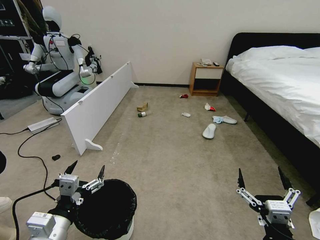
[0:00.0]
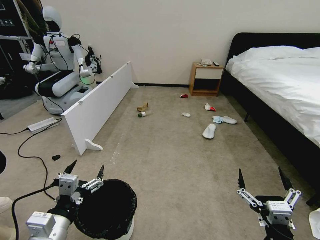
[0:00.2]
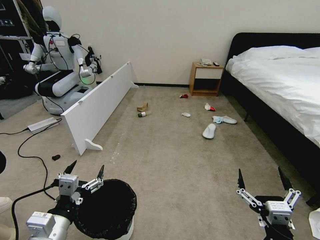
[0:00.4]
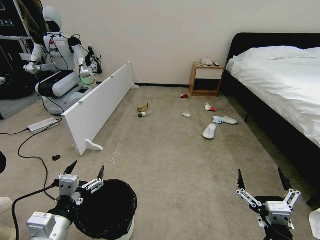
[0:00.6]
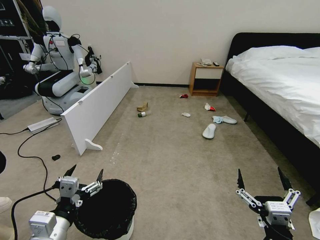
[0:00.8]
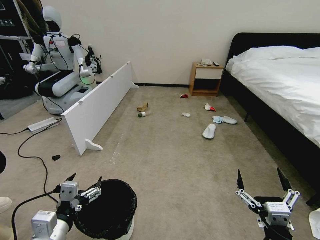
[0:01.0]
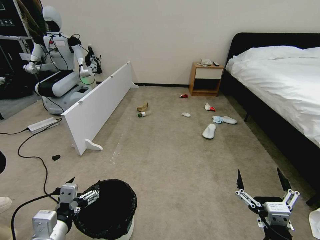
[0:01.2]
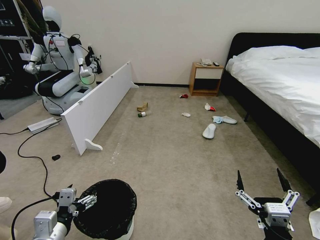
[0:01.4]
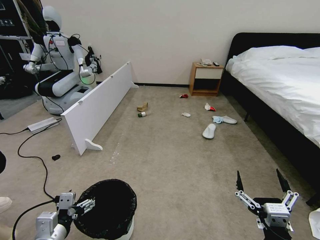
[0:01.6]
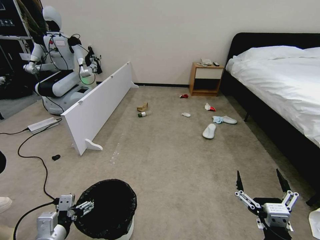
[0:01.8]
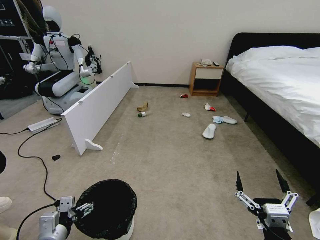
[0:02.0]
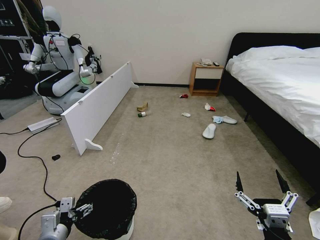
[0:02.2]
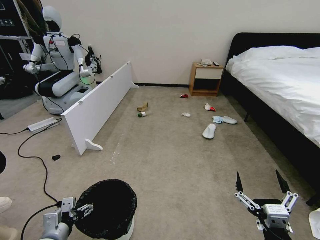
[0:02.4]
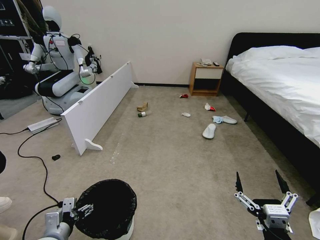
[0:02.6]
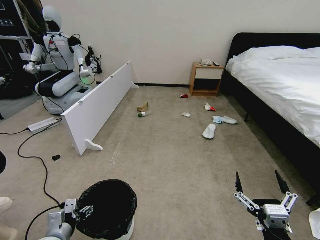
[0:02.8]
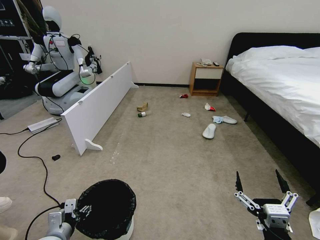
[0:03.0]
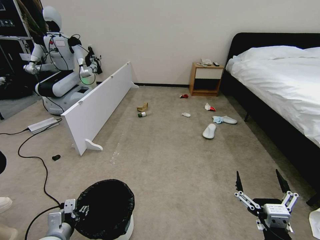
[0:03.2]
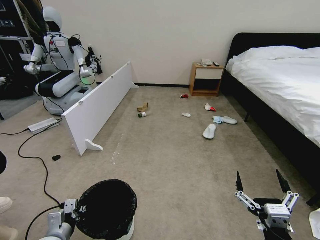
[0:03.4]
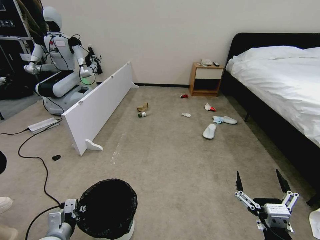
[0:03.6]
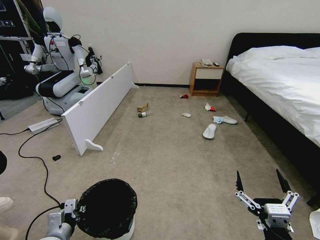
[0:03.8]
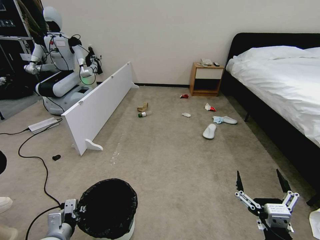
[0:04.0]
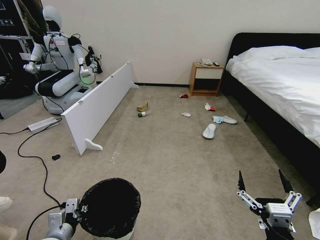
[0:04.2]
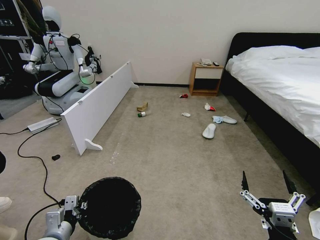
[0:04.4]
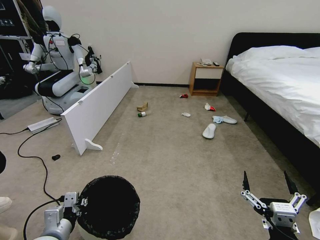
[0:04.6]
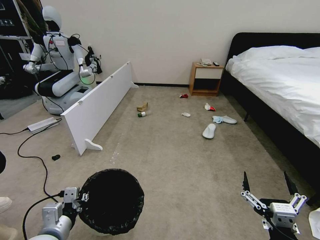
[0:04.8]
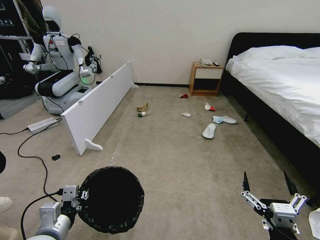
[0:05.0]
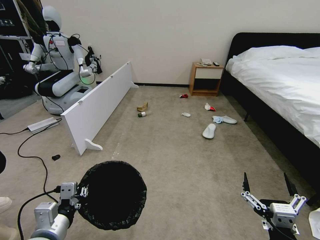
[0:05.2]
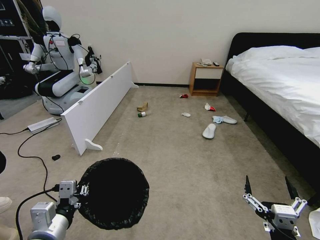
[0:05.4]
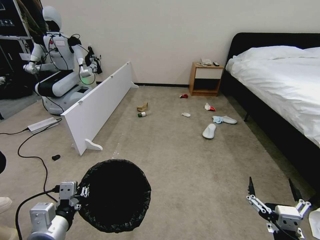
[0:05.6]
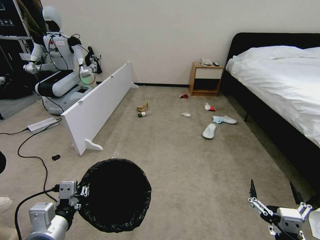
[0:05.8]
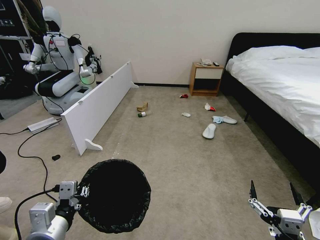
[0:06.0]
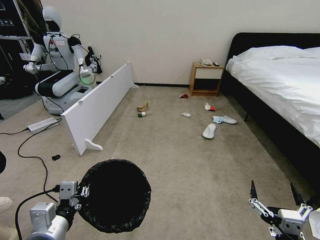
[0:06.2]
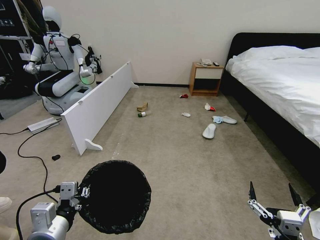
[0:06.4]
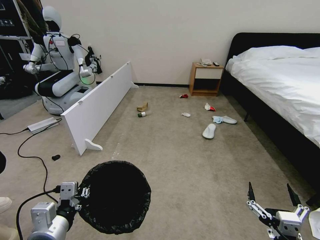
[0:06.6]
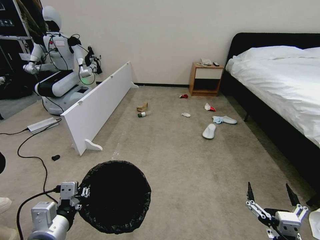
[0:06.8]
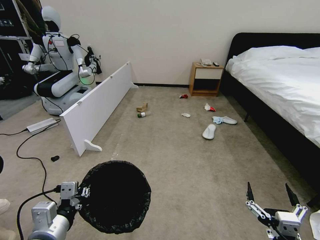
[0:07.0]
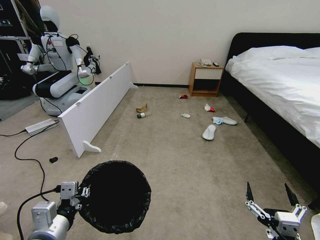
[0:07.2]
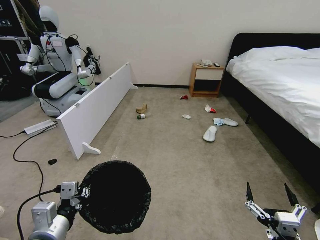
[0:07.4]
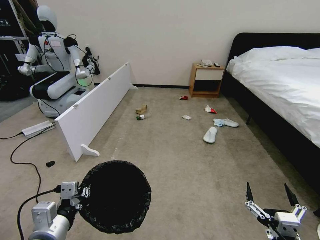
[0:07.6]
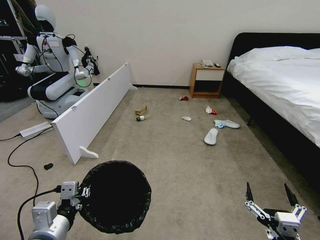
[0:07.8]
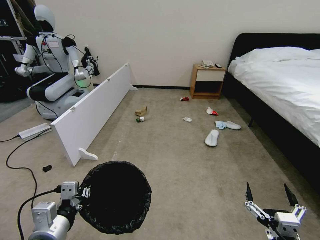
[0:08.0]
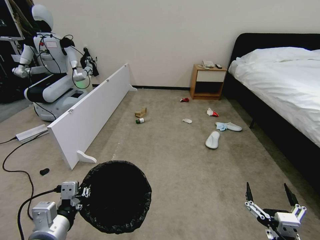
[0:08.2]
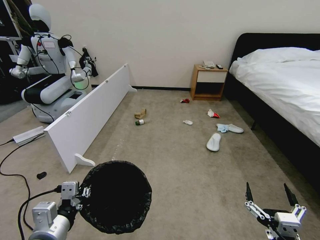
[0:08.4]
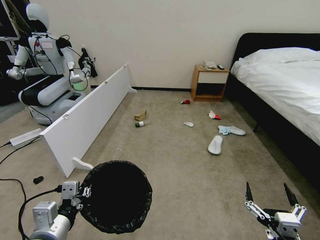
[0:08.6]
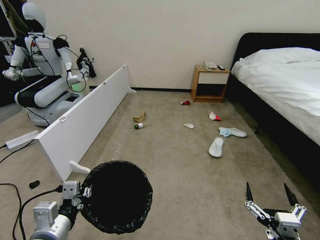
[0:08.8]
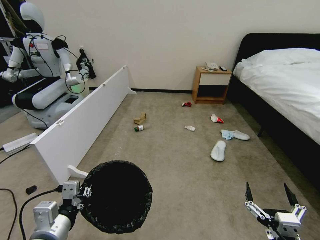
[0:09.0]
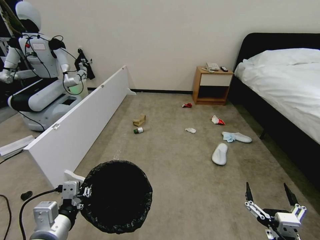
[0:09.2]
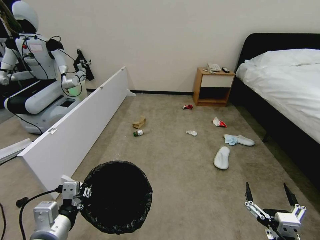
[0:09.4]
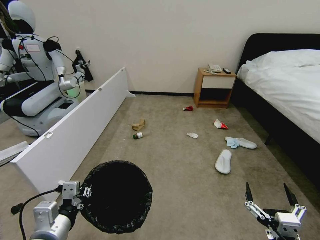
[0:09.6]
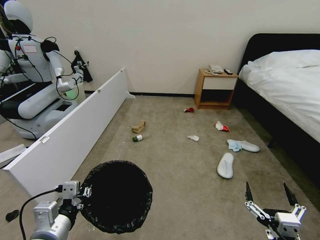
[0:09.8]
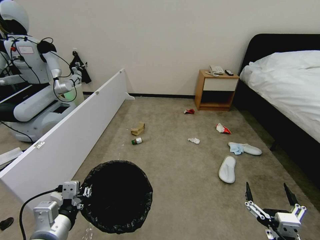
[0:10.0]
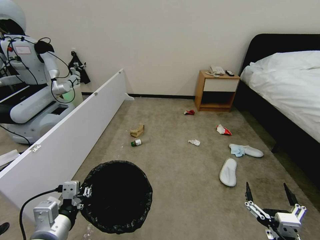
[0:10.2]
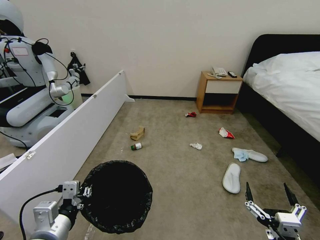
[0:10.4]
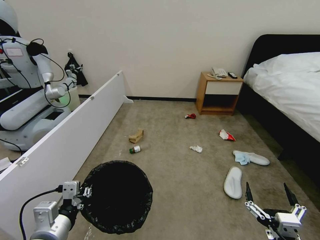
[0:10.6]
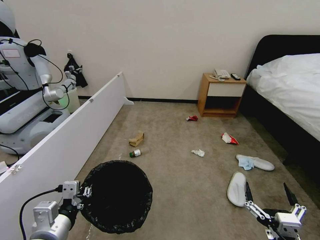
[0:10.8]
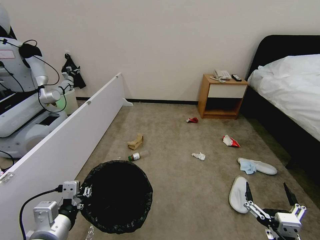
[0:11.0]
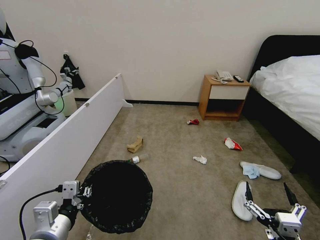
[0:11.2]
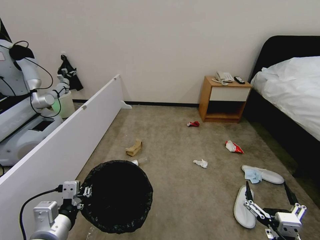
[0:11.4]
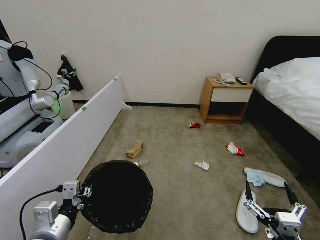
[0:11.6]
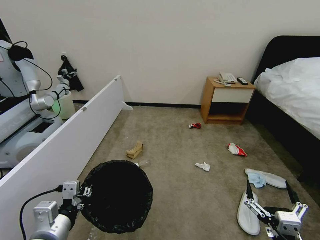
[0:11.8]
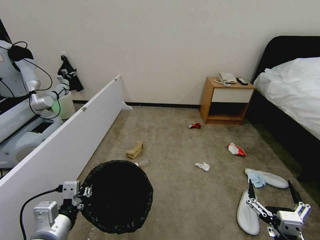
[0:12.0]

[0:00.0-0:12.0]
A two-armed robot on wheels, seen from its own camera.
Task of the whole recording: Pick up the trash bin, then pick up the garbage from the floor and place it into the trash bin.
0:01.6 to 0:03.0: The left gripper goes some 10 cm downward.
0:03.0 to 0:04.4: The left gripper closes.
0:04.4 to 0:06.0: The left gripper moves upward, roughly 10 cm.
0:06.0 to 0:07.6: Neither gripper changes place.

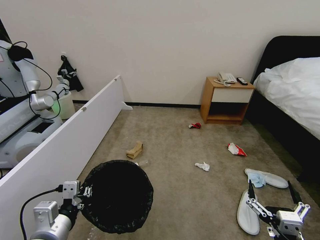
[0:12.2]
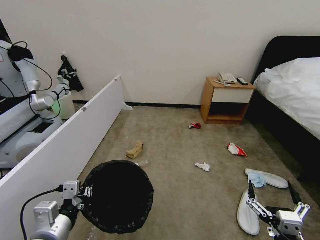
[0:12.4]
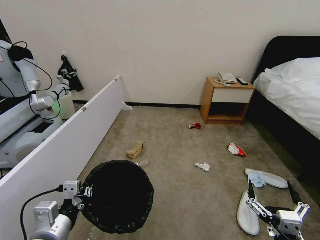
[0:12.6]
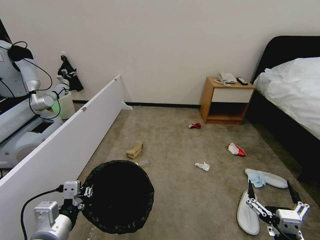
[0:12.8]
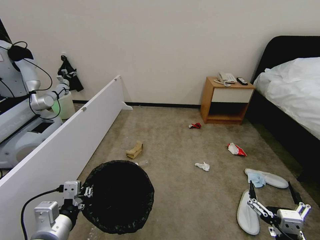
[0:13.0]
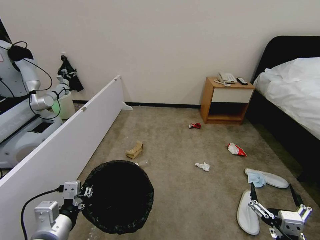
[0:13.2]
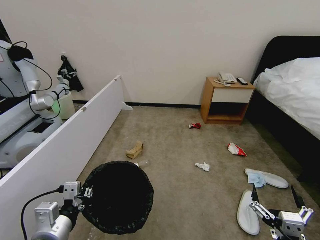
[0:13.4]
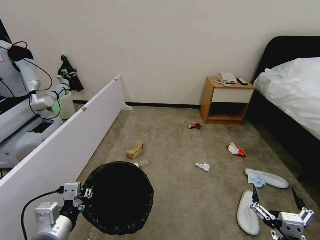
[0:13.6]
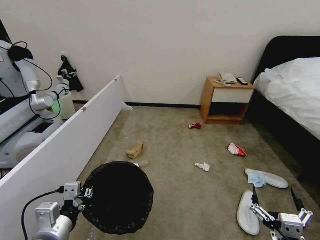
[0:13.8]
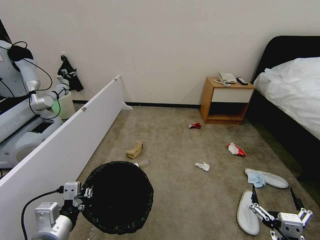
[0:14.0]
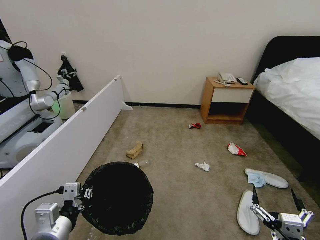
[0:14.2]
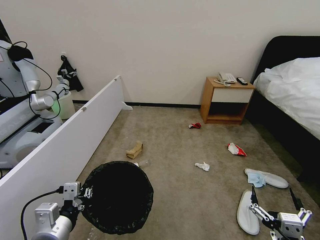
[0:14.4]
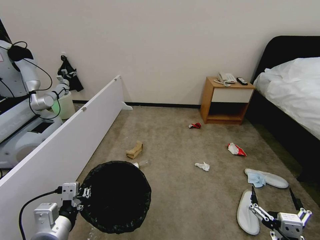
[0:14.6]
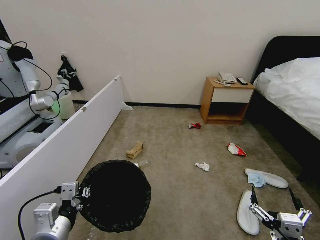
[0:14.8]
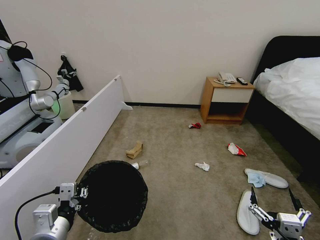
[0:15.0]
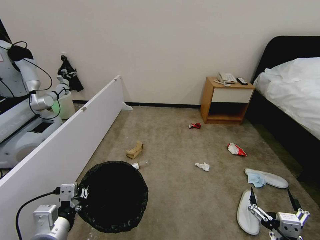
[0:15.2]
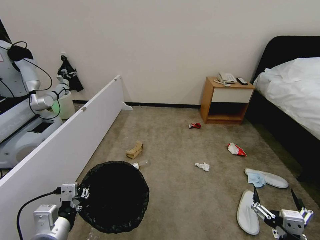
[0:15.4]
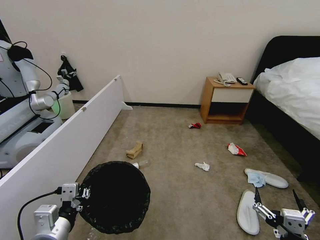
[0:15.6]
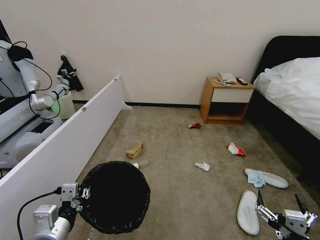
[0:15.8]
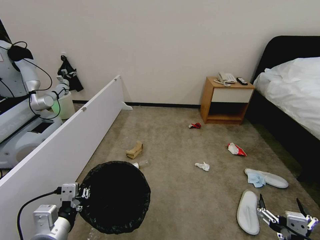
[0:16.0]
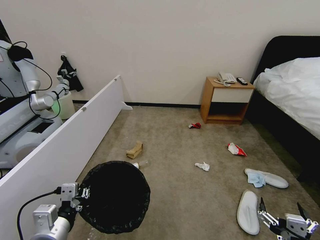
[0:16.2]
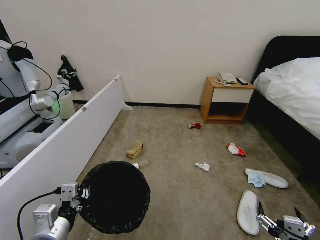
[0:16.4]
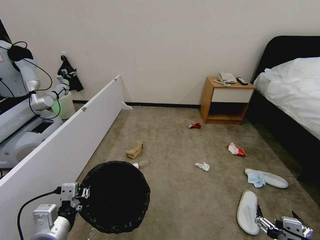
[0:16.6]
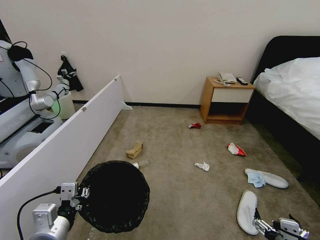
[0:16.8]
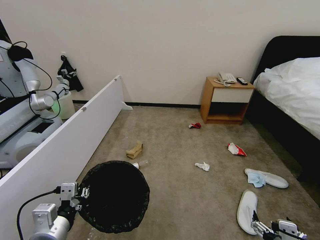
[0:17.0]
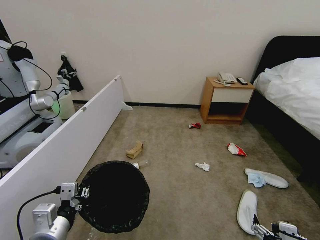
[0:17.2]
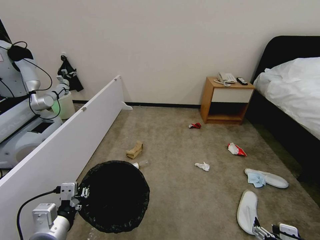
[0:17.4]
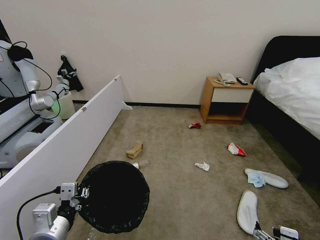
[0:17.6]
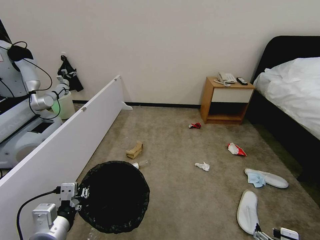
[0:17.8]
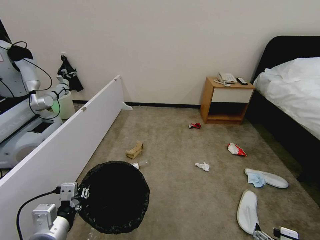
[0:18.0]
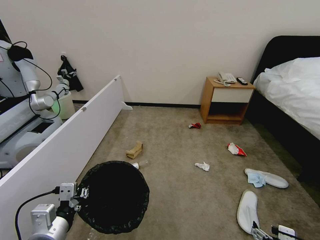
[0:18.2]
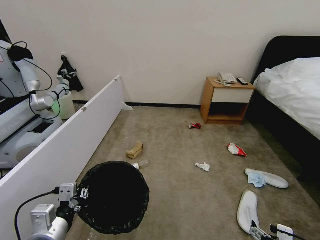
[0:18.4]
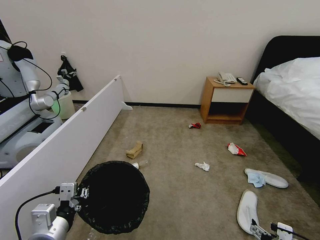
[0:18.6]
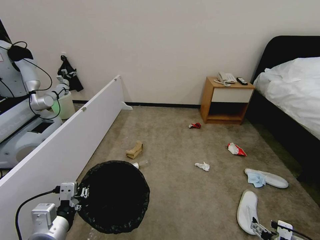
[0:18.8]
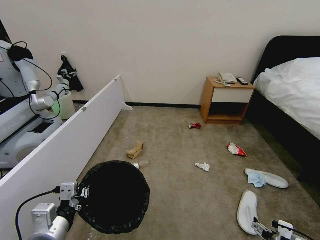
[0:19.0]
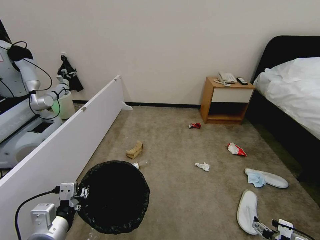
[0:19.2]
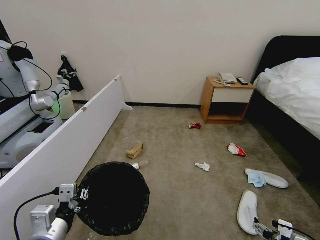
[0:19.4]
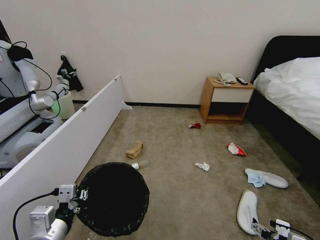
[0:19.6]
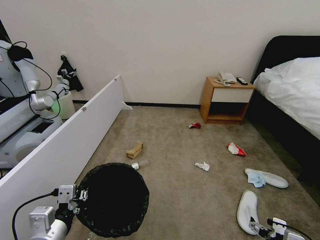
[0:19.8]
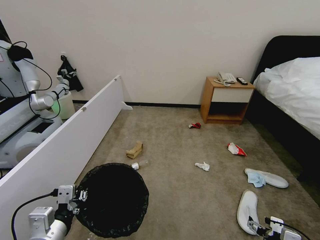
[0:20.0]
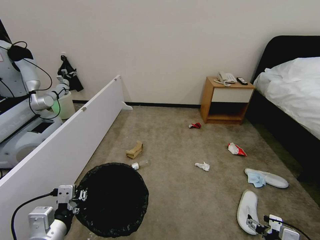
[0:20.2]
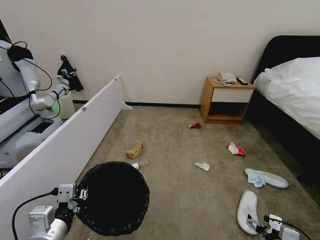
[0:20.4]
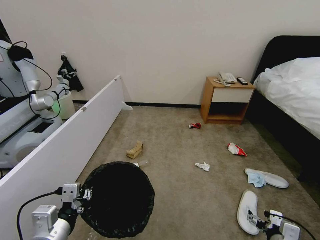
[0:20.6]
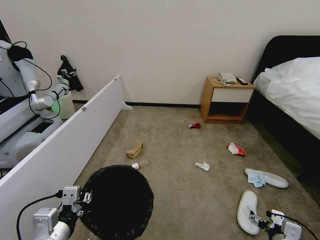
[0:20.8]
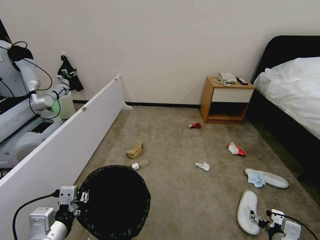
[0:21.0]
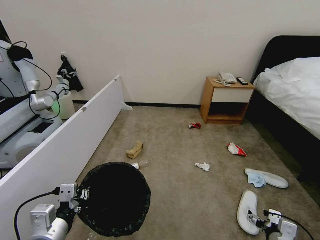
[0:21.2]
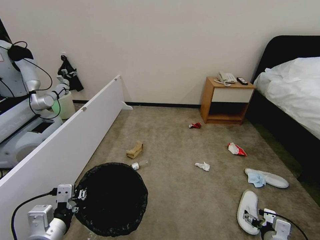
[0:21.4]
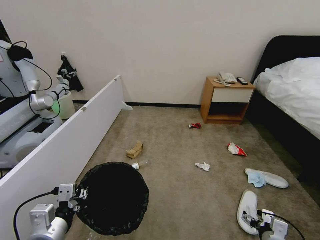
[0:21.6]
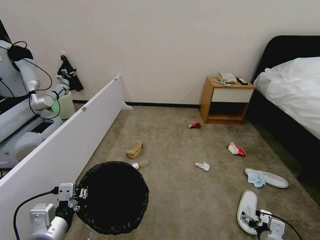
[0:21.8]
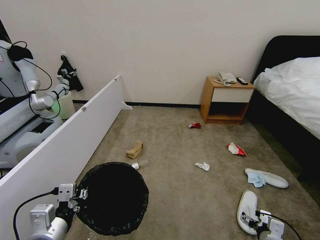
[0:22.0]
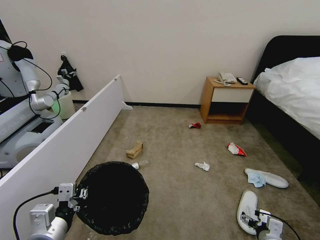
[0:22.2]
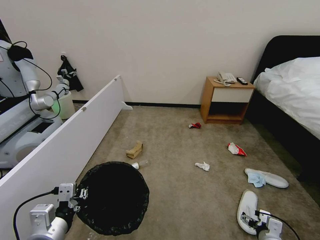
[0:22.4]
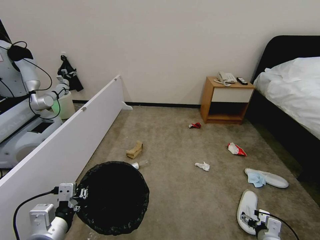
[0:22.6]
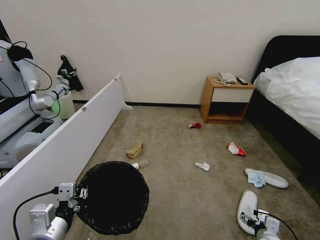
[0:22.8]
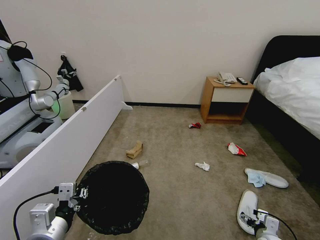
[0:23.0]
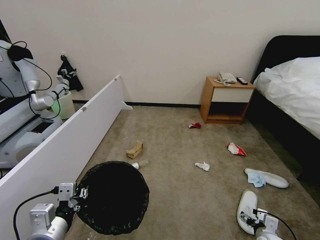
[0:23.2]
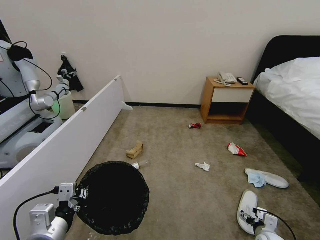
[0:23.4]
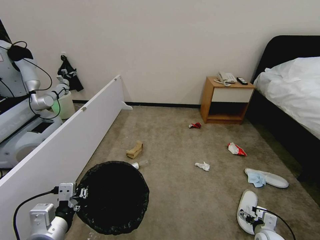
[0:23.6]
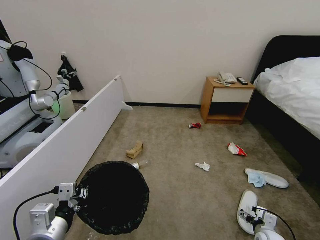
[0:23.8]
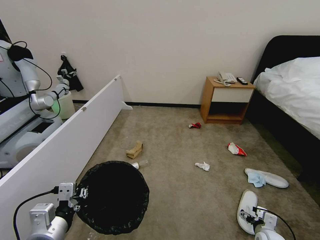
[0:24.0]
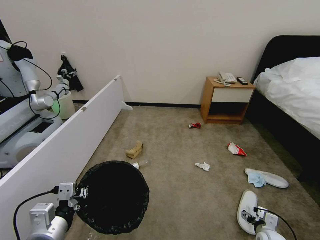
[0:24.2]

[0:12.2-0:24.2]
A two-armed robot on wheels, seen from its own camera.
Task of the whole recording: Pick up the trash bin, then pick up the garbage from the floor and place it into the trash bin.
0:12.2 to 0:15.2: There are only small adjustments of the grippers.
0:18.2 to 0:19.8: The right gripper moves downward and forward, about 10 cm.
0:19.8 to 0:21.2: The grippers stay close to where they were, moving slightly.
0:21.2 to 0:22.6: The right gripper moves downward, approximately 5 cm.
0:22.6 to 0:24.2: The grippers stay close to where they were, moving slightly.
